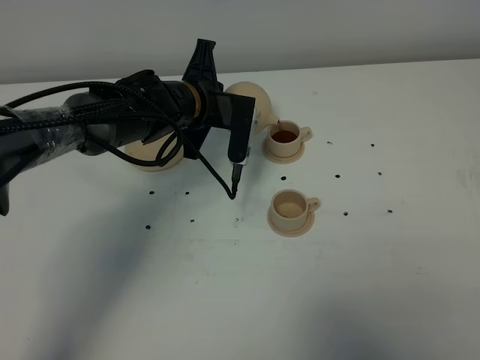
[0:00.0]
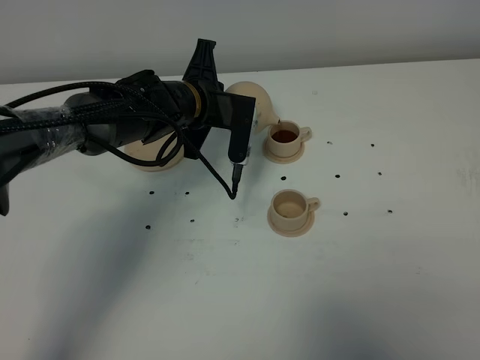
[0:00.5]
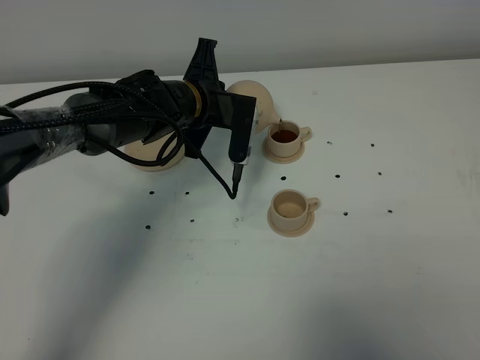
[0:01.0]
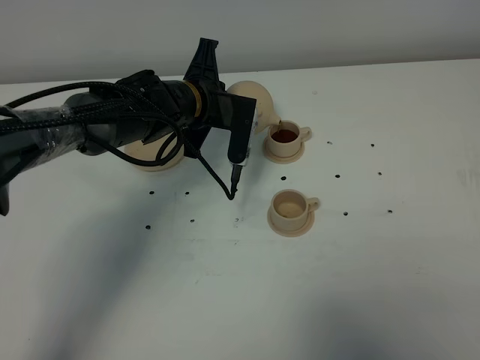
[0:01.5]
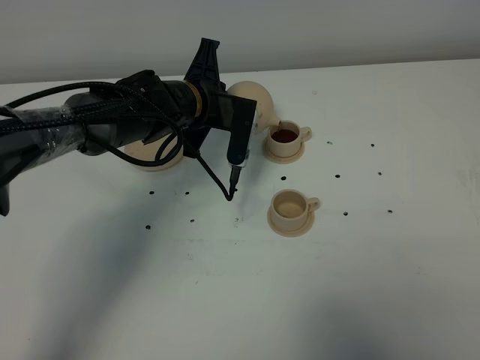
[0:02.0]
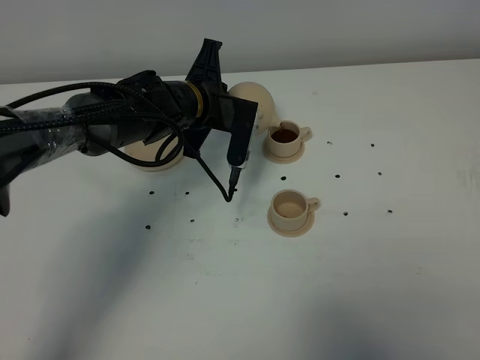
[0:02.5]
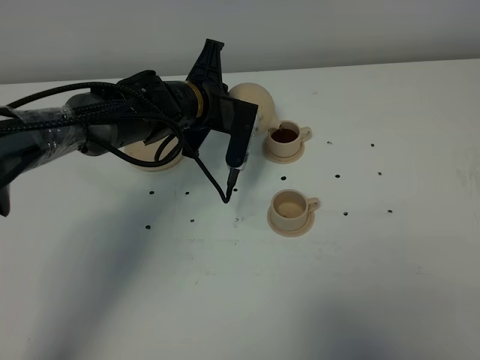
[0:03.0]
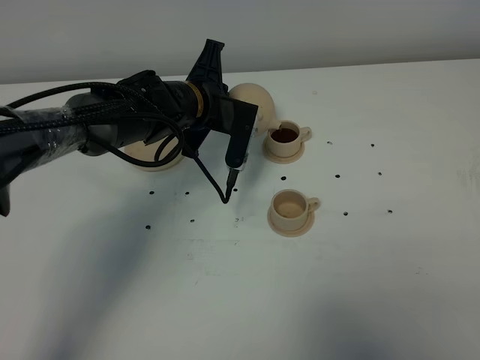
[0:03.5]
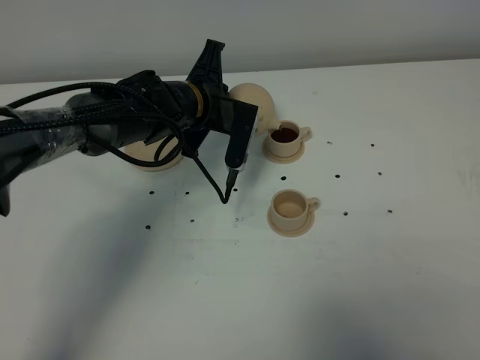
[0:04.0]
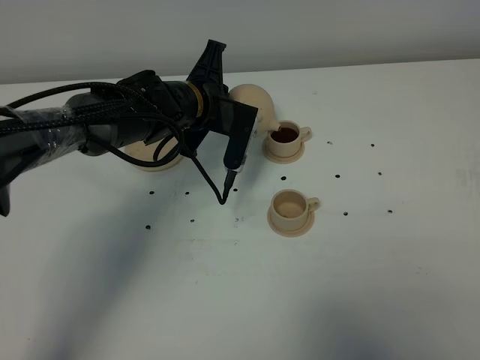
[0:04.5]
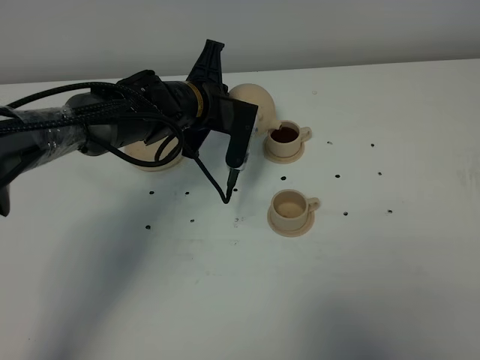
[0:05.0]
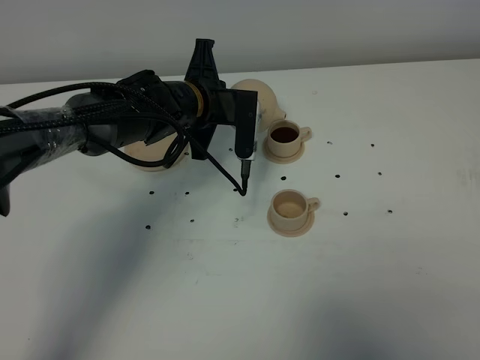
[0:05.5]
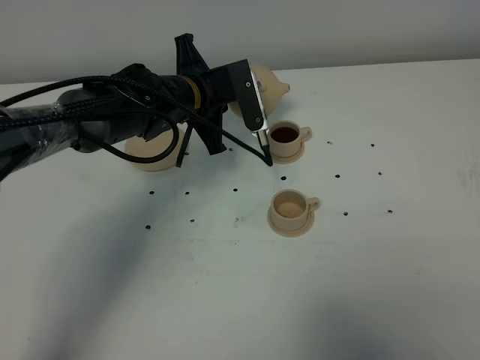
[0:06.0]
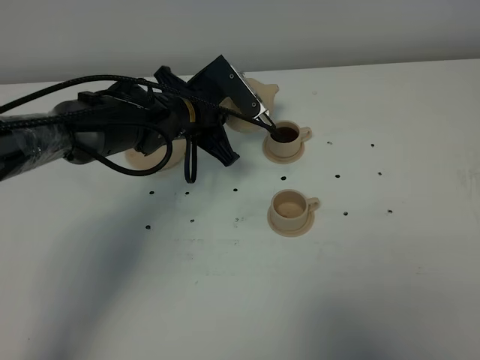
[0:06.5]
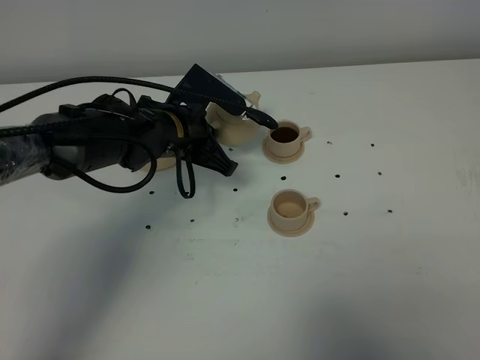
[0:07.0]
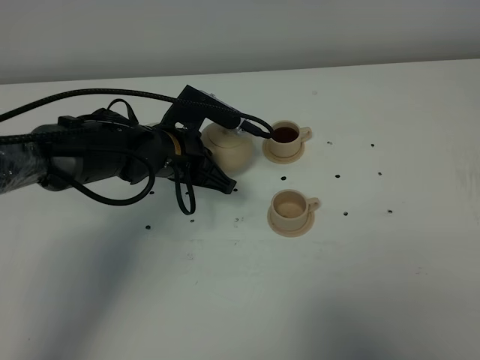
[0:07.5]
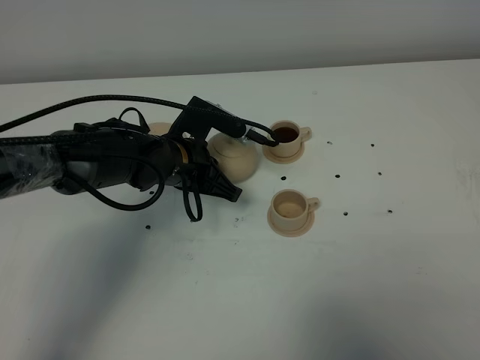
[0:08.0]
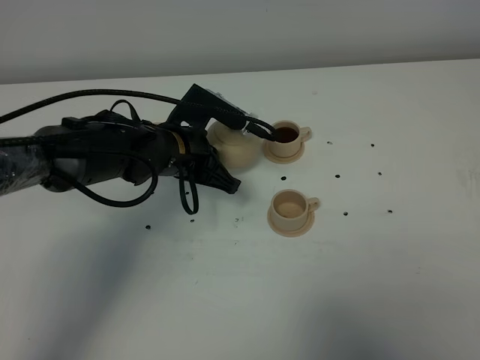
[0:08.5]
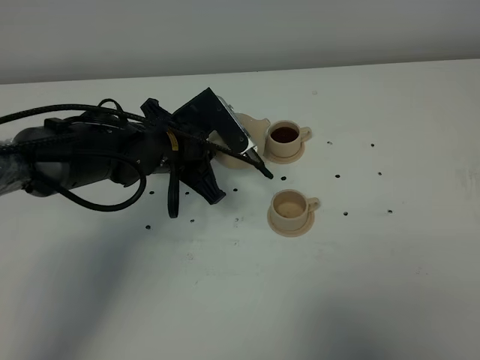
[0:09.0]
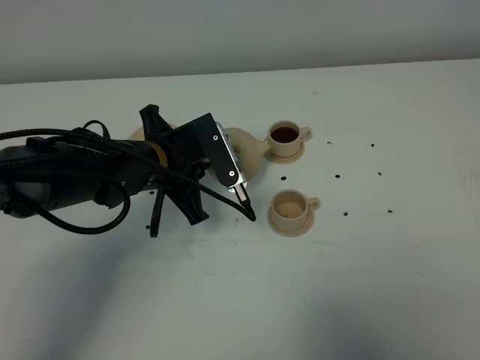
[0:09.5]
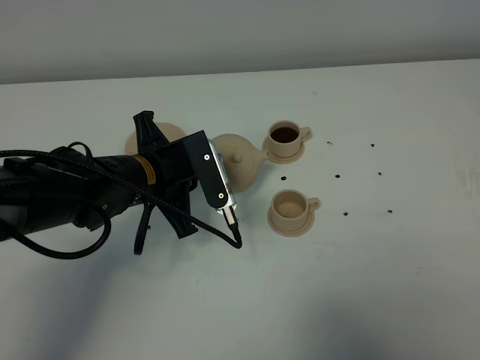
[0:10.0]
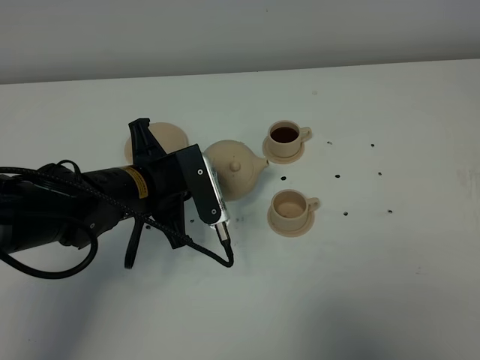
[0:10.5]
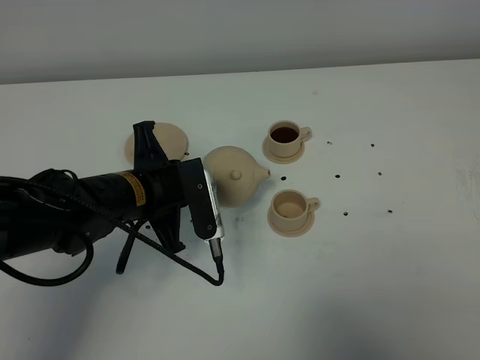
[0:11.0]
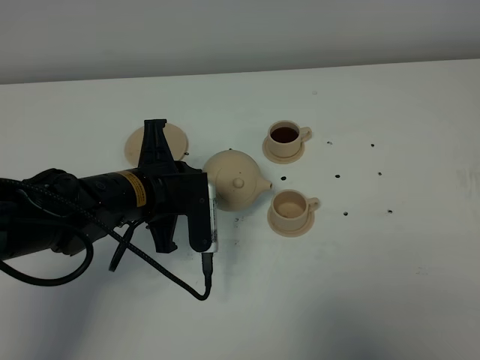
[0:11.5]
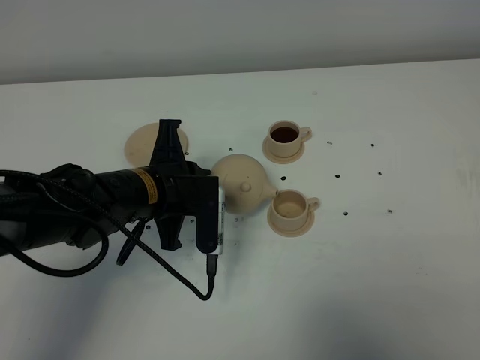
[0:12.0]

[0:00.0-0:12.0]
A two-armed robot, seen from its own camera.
Task of the whole recording: grasp the brown teapot and pour the tea into the two brown teacups one by one, put the brown teapot back in its original place.
0:00.0 to 0:02.0: Neither gripper changes place.
0:02.0 to 0:04.0: Both grippers stay about where they are.
0:06.0 to 0:08.0: The left gripper goes some 10 cm backward and downward.
0:08.0 to 0:10.0: The left gripper moves backward, roughly 5 cm.

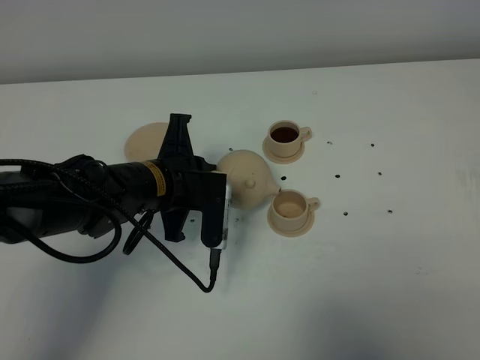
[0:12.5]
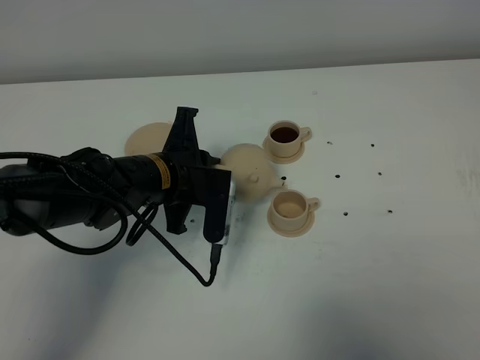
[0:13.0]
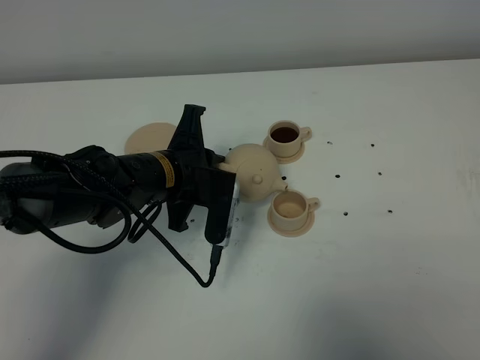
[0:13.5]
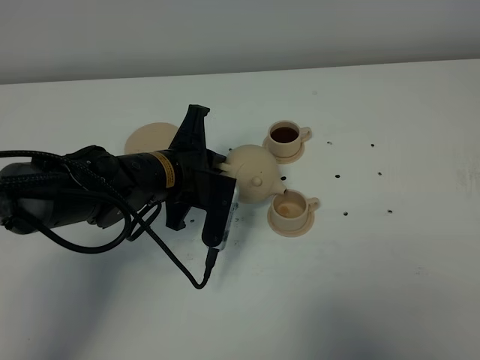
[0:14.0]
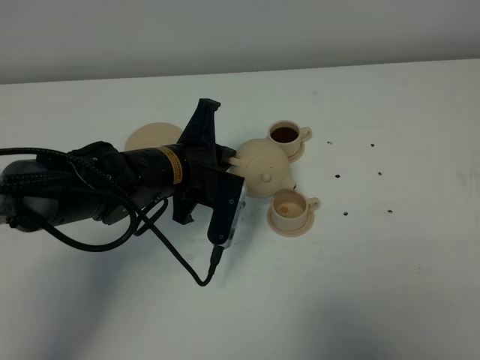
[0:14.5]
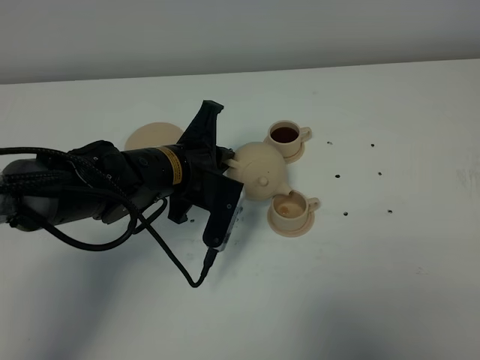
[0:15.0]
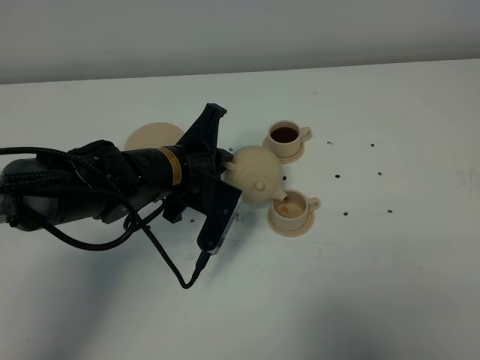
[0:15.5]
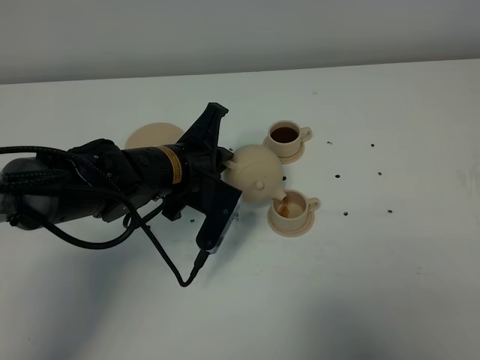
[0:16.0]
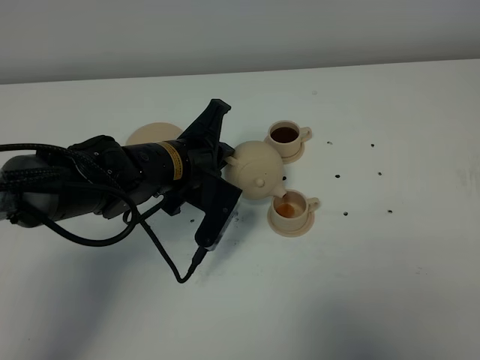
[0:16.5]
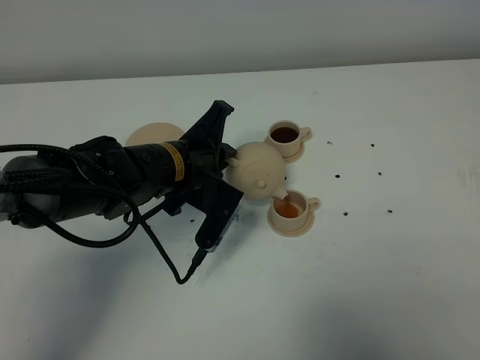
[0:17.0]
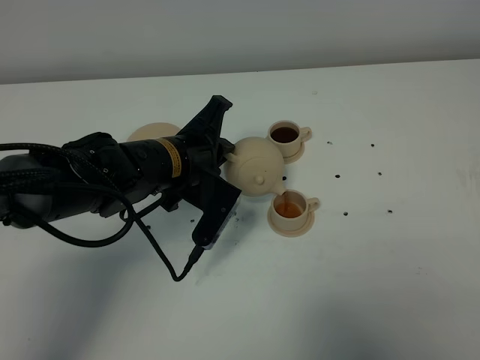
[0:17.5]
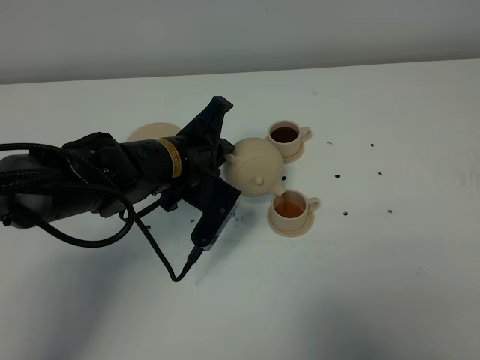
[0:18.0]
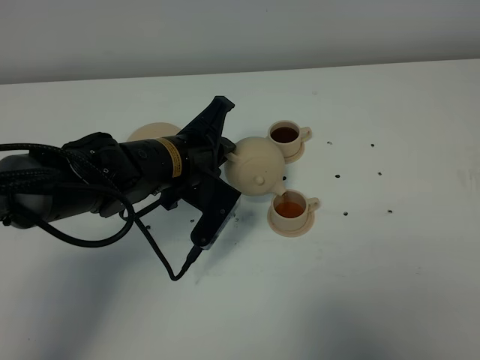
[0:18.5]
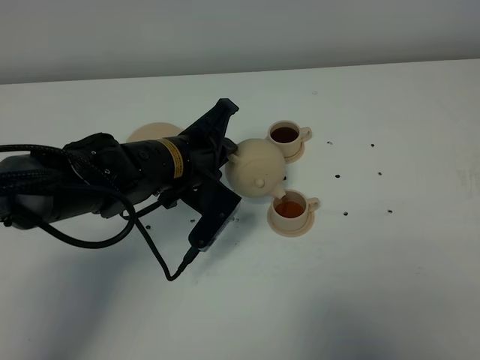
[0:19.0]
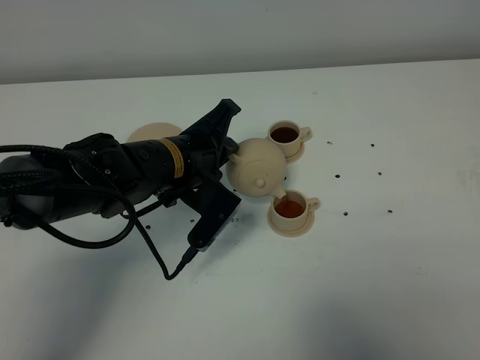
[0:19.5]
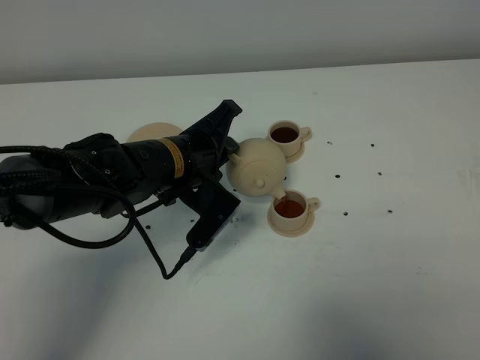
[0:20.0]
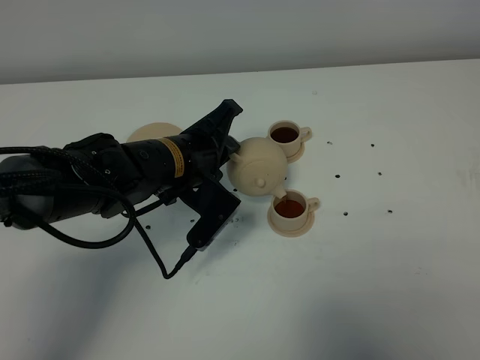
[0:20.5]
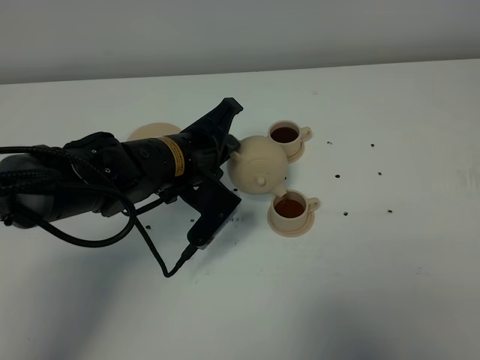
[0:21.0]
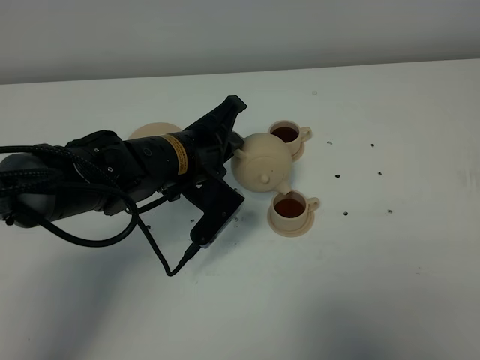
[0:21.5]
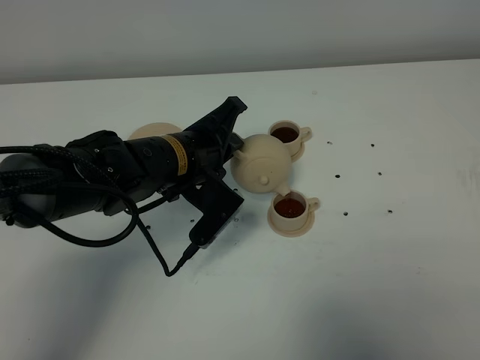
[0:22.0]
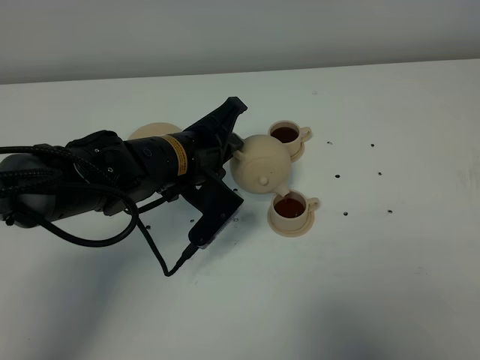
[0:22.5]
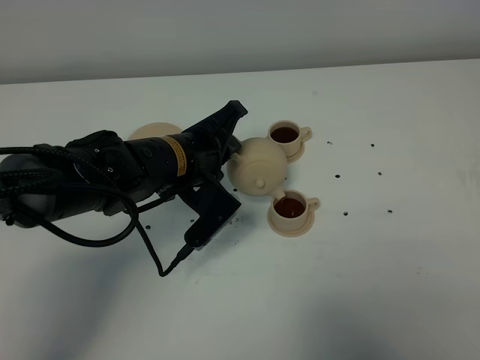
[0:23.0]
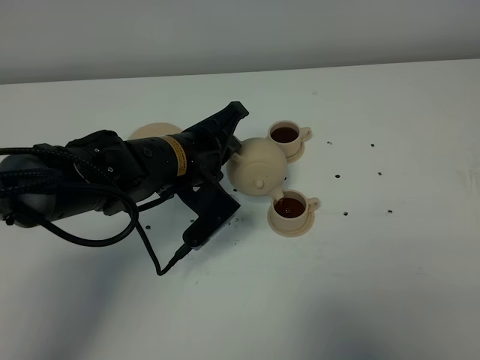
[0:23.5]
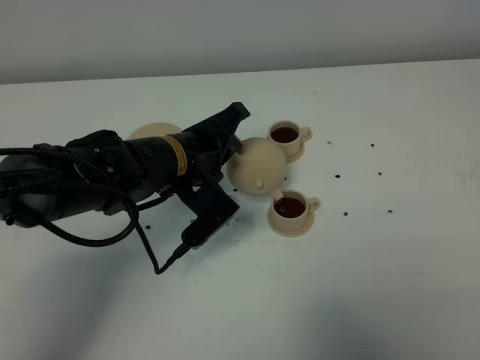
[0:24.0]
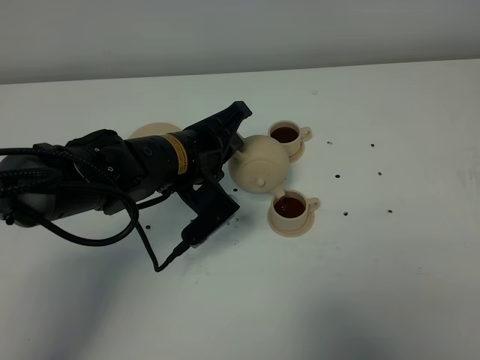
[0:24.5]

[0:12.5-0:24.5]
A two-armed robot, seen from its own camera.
Task of the whole recording: grasp the brown teapot and pour the tea into the two brown teacups one by one, put the brown teapot back in its original place.
0:12.5 to 0:14.5: The grippers stay close to where they were, moving slightly.
0:14.5 to 0:16.5: The grippers move only a little.
0:16.5 to 0:18.5: The two grippers keep their place.
0:18.5 to 0:20.5: There are only small adjustments of the grippers.
0:20.5 to 0:22.5: Both grippers stay put.
0:22.5 to 0:24.5: The grippers stay close to where they were, moving slightly.

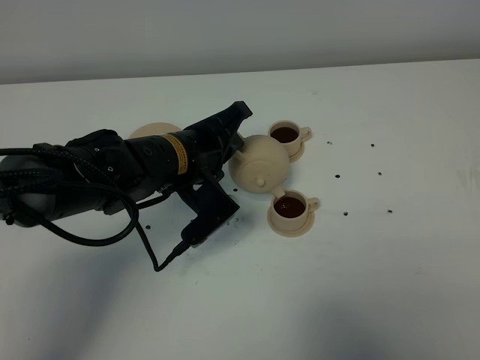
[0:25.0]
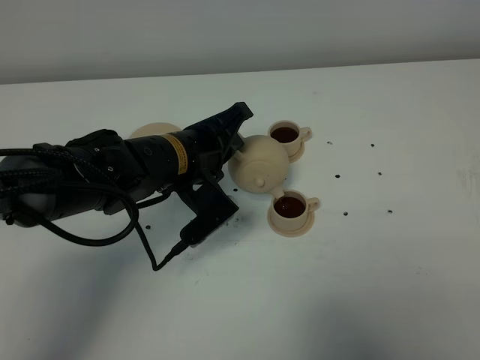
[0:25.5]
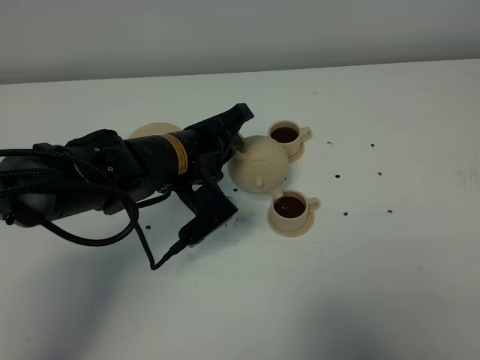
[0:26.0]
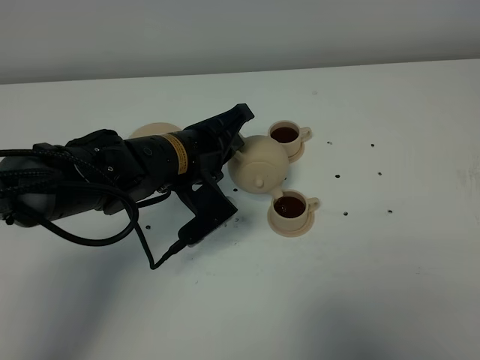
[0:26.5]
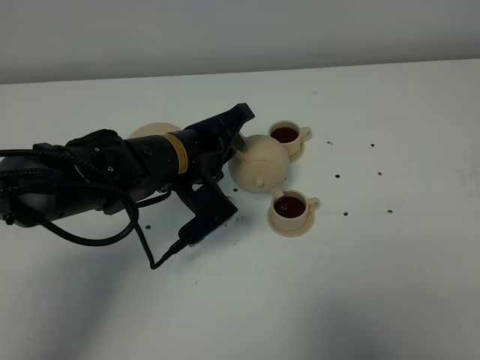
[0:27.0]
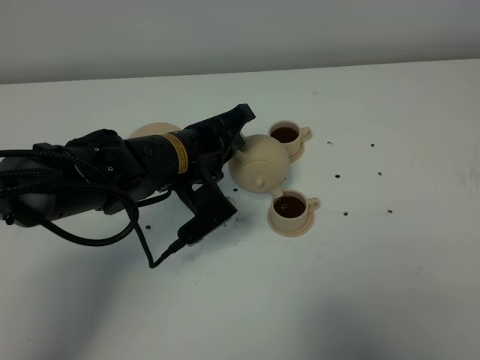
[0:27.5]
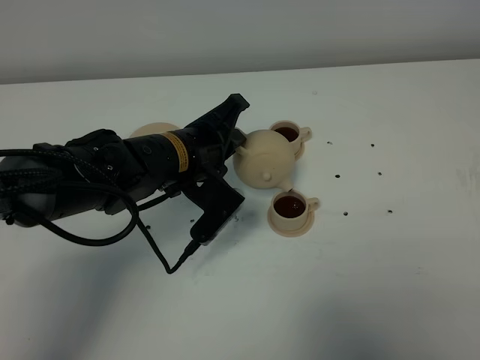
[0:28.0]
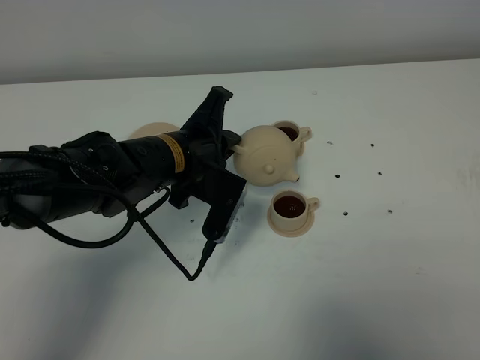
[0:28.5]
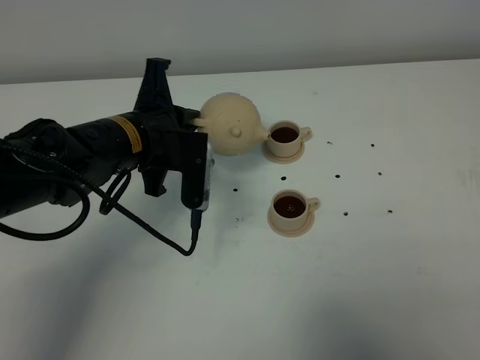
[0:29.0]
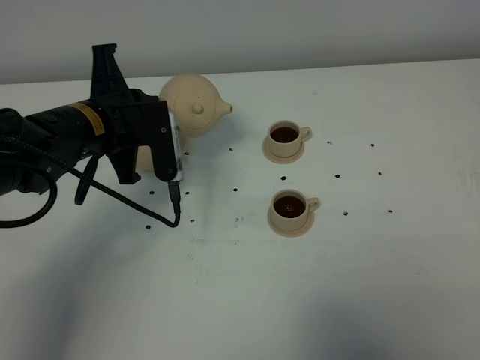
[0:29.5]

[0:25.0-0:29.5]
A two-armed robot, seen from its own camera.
Task of the whole recording: grasp the brown teapot and pour the tea into the two brown teacups one by one, put the brown teapot back in its original place.
Step, 0:25.0 to 0:28.0: Pour tea into the teacup with left gripper.
0:25.0 to 0:27.0: Both grippers stay put.
0:27.0 to 0:29.5: The left gripper shifts about 10 cm to the left.
